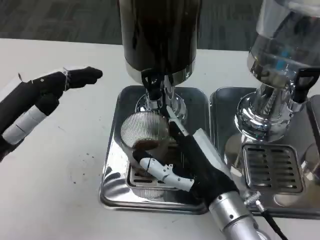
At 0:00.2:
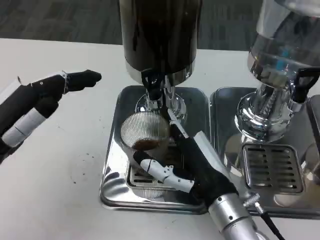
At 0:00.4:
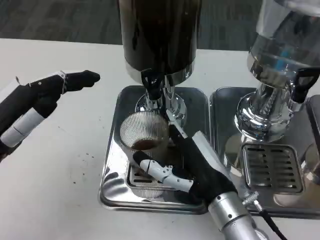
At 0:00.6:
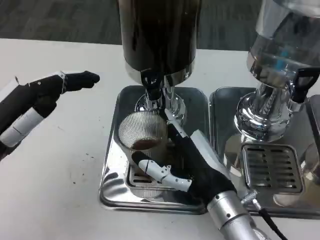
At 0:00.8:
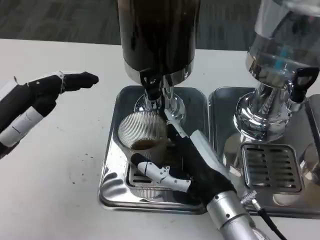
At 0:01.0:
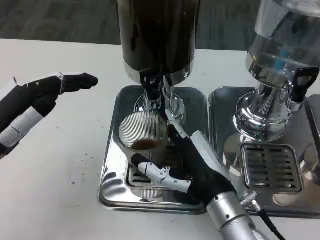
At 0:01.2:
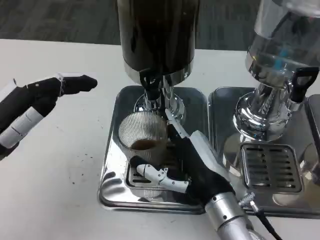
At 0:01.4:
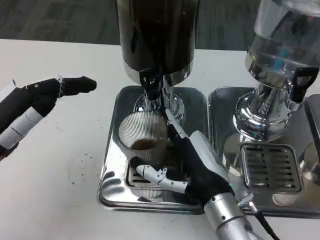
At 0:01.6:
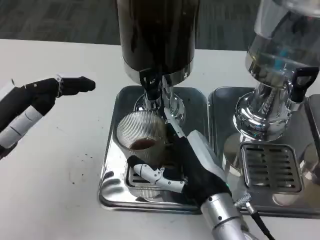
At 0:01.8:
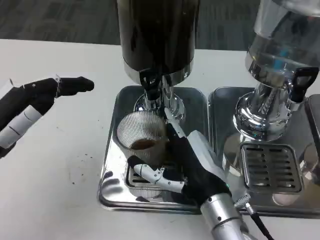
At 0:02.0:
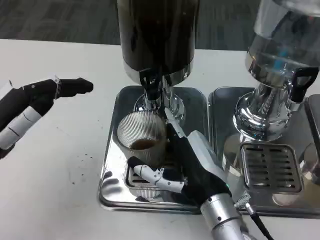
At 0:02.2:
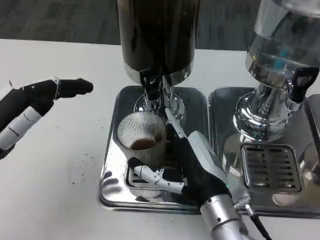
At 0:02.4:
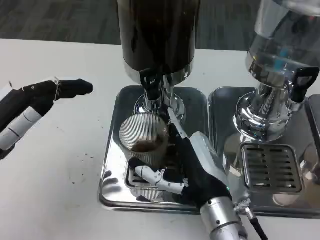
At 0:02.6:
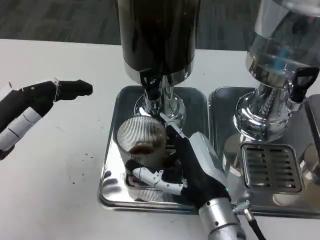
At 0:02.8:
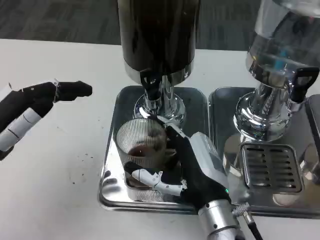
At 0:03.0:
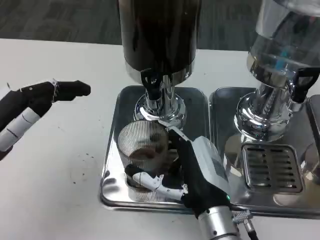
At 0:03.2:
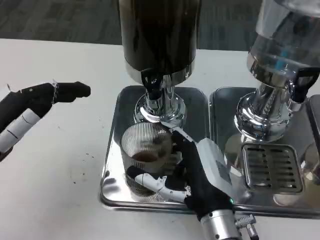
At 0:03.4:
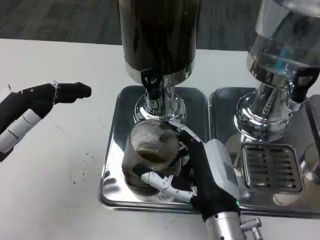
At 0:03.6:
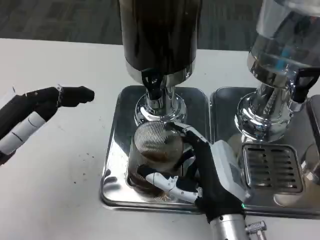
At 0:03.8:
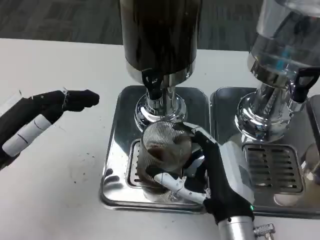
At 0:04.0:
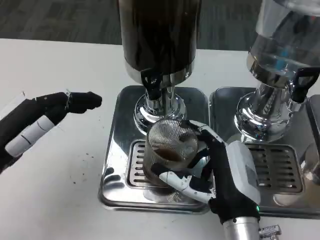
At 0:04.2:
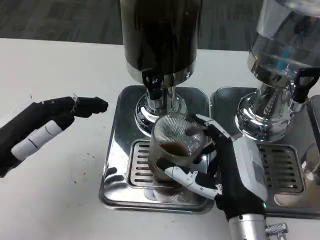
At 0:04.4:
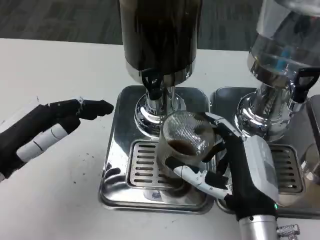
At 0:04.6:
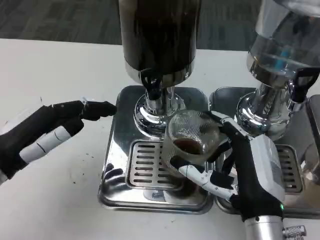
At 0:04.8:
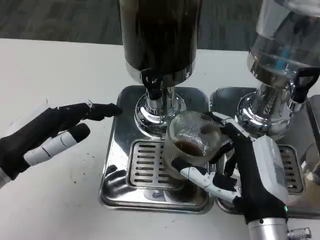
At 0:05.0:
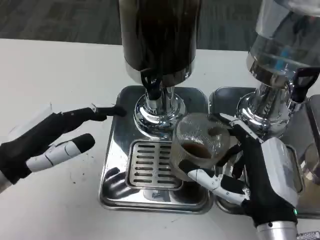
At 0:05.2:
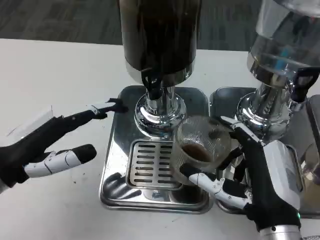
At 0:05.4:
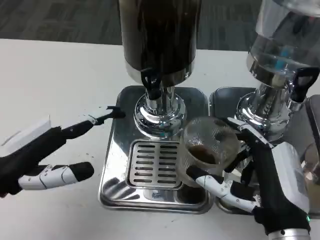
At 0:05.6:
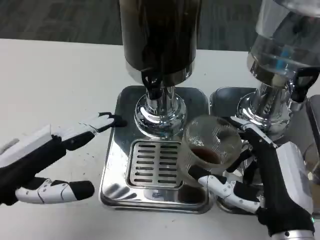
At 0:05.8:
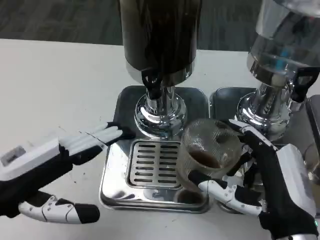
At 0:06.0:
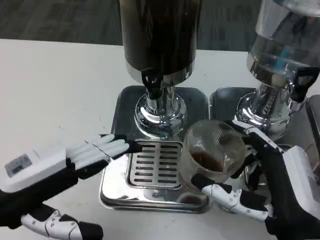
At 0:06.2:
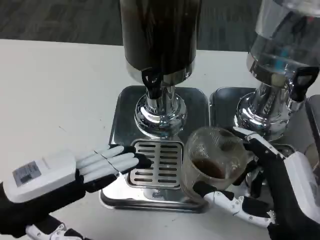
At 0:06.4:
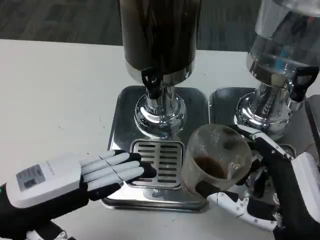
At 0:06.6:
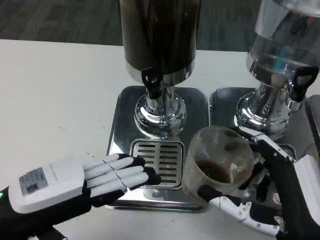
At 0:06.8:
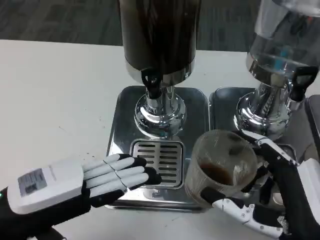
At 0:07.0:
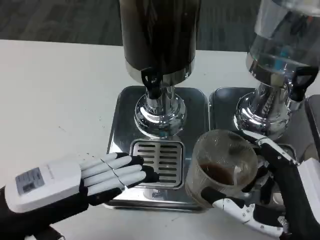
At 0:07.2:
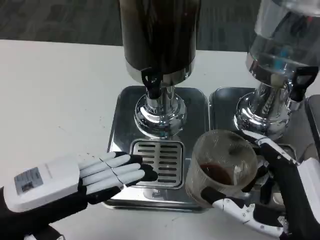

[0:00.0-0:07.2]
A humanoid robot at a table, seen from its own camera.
Task of the whole recording: Grasp the cup under the faucet to collect the drink, then remove the cup.
0:00.0 to 0:01.4: The two hands keep their place.
0:01.4 to 0:02.8: The hands make only small movements.
0:04.4 to 0:05.8: The right hand ends up some 5 cm from where it was.

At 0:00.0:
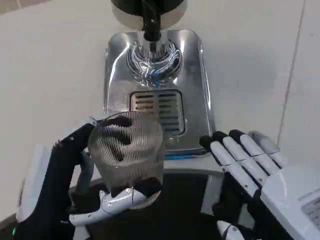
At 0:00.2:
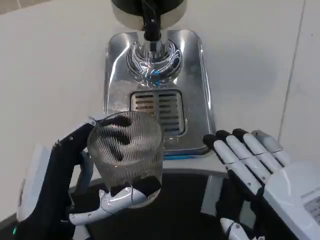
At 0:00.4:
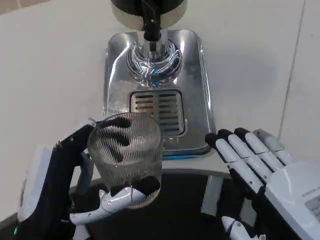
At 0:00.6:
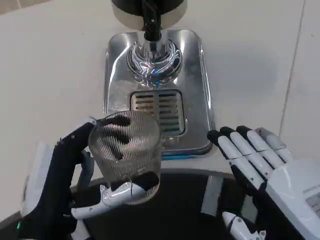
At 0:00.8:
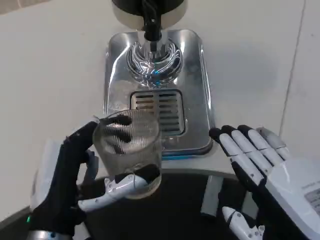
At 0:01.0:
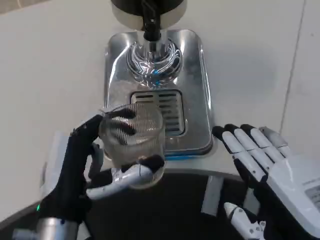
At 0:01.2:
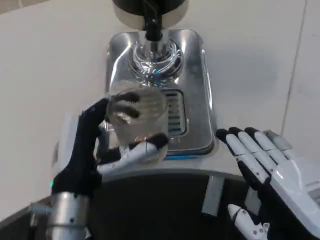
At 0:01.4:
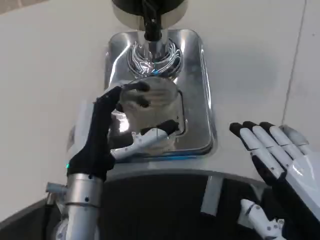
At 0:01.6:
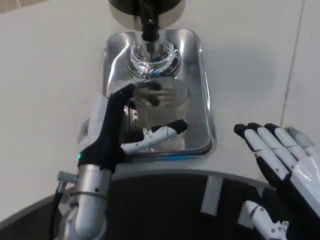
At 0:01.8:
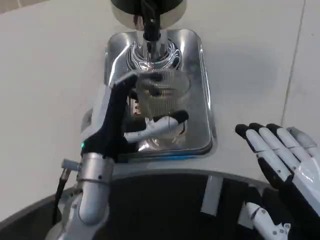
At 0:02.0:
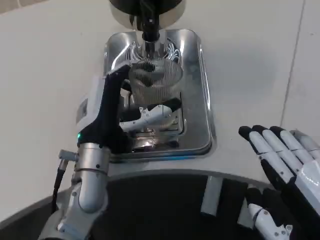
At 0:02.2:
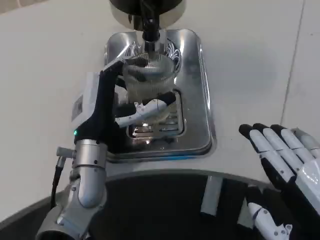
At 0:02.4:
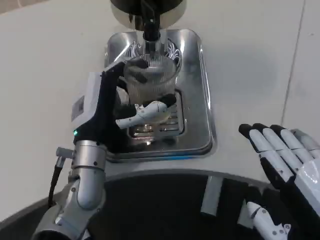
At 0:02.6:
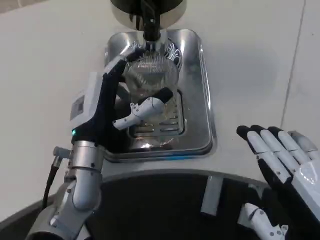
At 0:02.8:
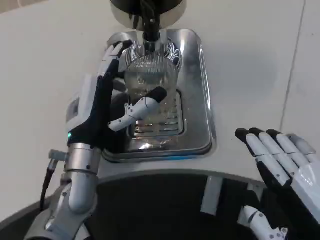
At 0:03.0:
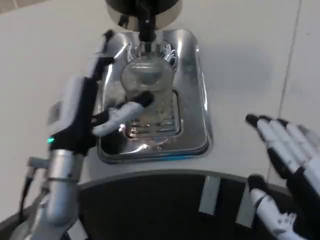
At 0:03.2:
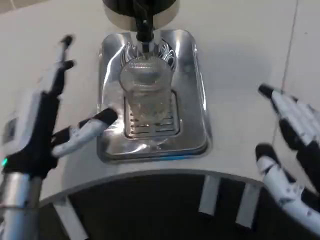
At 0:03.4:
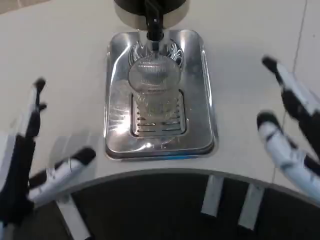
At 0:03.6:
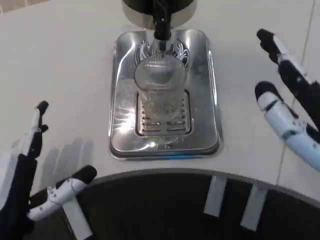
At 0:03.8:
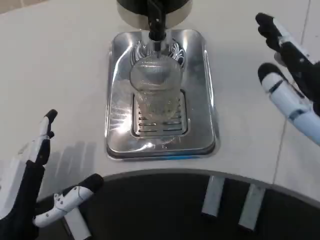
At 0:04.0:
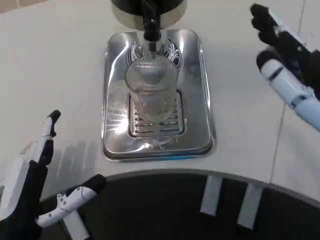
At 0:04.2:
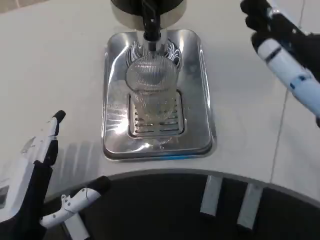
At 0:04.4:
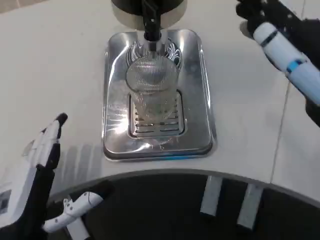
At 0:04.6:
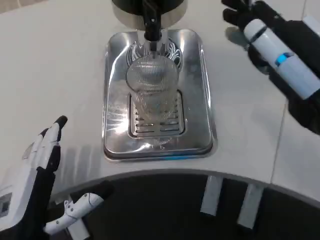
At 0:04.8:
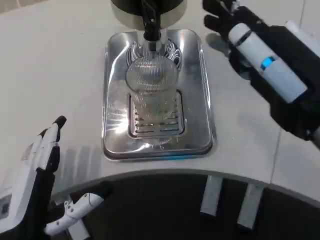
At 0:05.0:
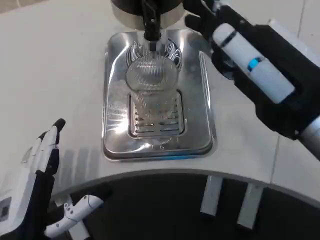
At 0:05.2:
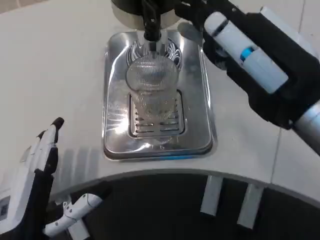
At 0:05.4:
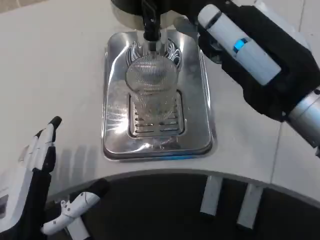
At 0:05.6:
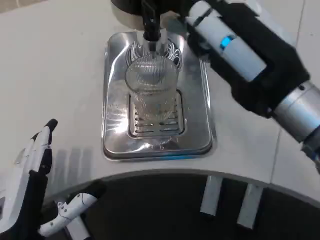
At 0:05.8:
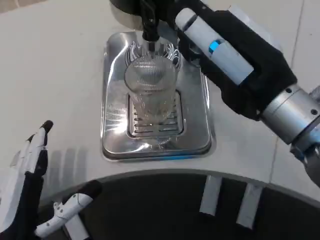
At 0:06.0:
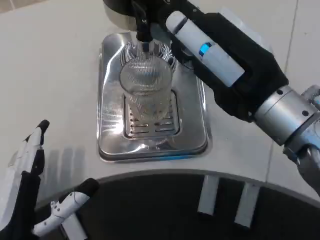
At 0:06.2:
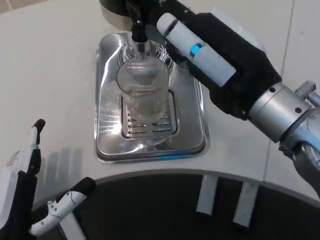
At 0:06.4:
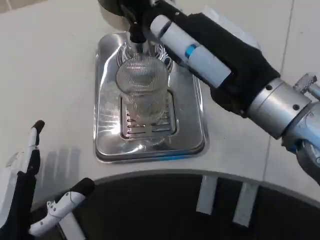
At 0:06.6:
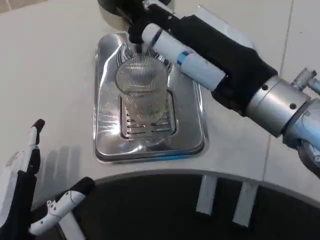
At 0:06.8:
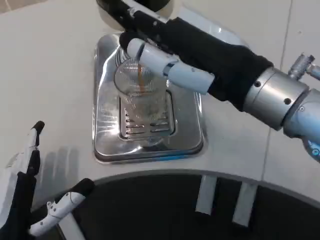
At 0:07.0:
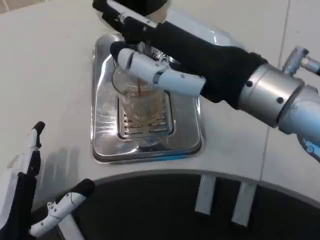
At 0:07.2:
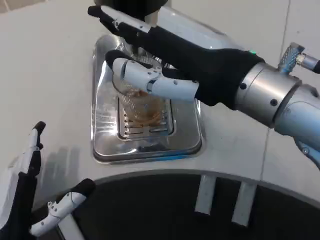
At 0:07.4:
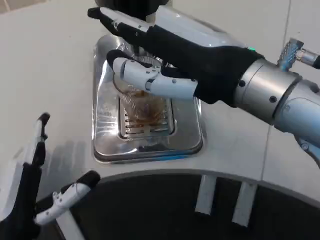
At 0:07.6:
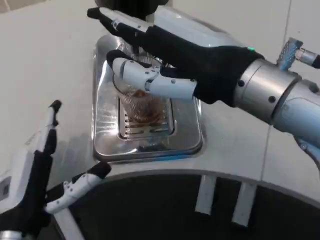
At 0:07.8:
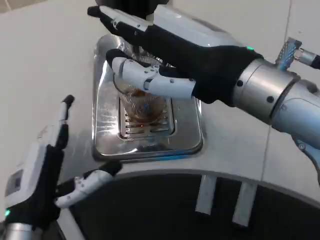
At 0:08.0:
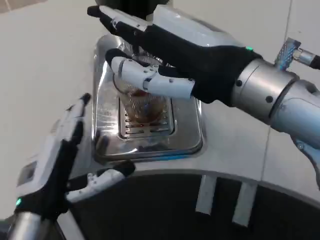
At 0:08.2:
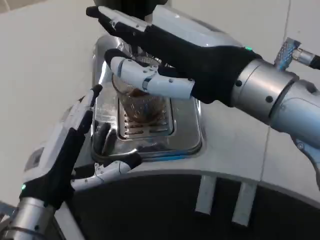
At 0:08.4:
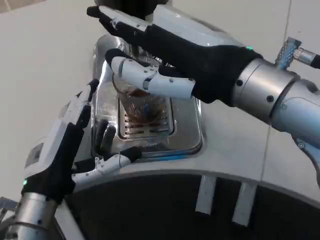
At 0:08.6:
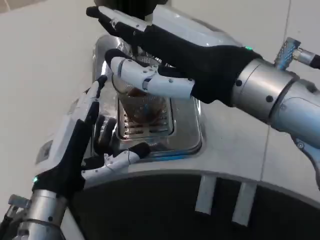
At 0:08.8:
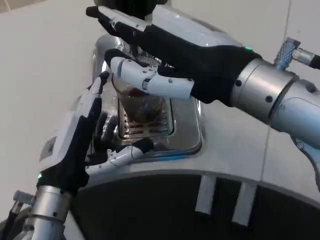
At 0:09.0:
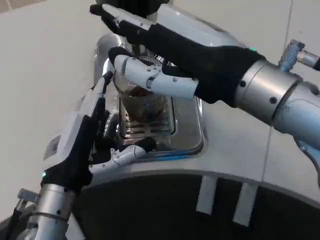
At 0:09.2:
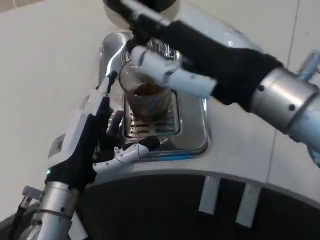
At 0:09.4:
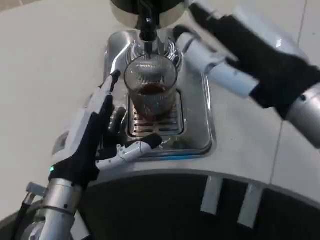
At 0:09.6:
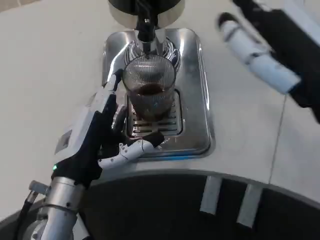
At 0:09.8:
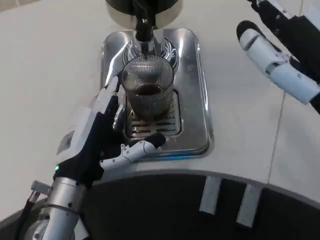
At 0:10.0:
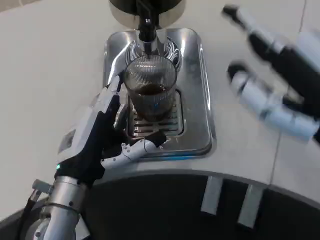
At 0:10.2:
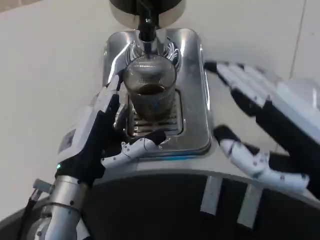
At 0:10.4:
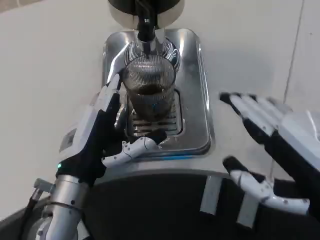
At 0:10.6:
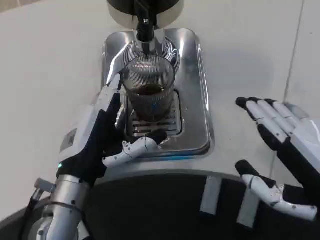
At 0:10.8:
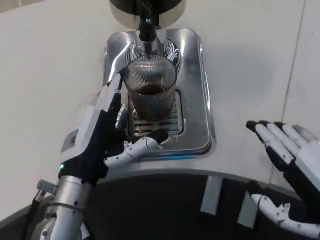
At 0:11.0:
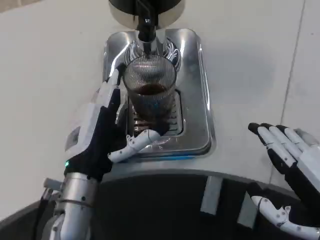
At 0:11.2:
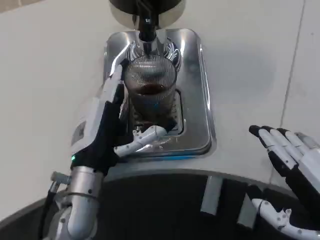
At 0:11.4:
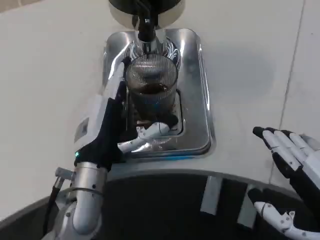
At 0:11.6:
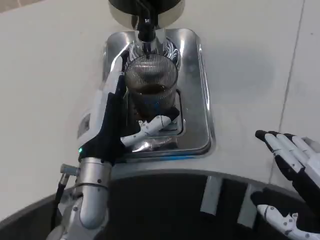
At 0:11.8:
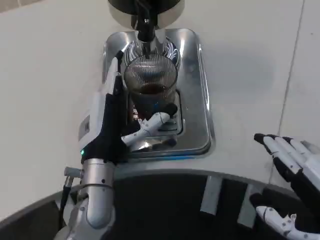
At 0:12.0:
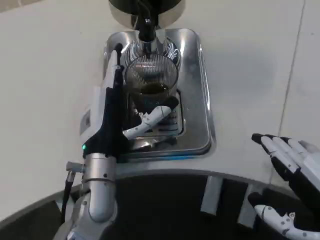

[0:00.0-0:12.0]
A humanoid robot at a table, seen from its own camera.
Task of the whole recording: Grasp the cup under the faucet to collect the drink, then remove the cup.
0:00.0 to 0:01.6: The left hand is displaced forward by some 15 cm.
0:03.0 to 0:04.4: The right hand travels forward and upward by some 15 cm, while the left hand shifts roughly 15 cm backward.
0:04.4 to 0:06.0: The right hand goes some 5 cm to the left.
0:06.0 to 0:07.6: The right hand moves about 5 cm.
0:07.6 to 0:09.0: The left hand travels forward by approximately 5 cm.
0:09.0 to 0:10.4: The right hand shifts roughly 15 cm downward, to the right and backward.
0:10.4 to 0:12.0: The left hand shifts approximately 5 cm to the right.

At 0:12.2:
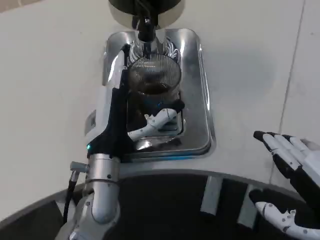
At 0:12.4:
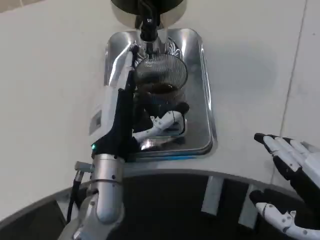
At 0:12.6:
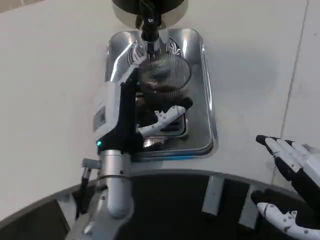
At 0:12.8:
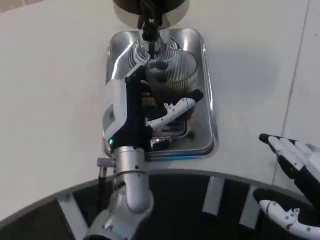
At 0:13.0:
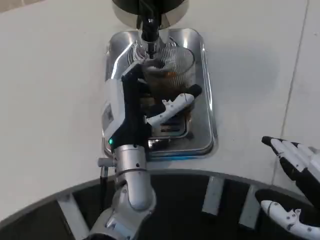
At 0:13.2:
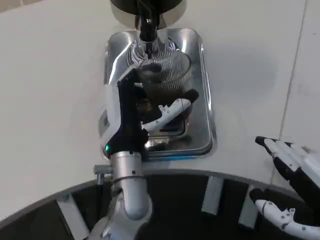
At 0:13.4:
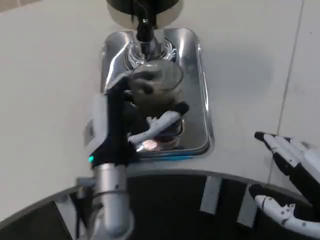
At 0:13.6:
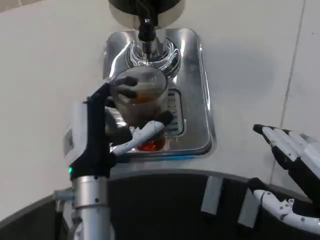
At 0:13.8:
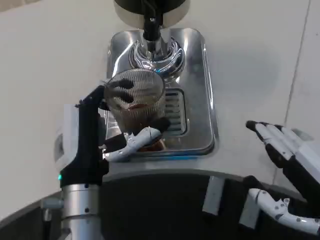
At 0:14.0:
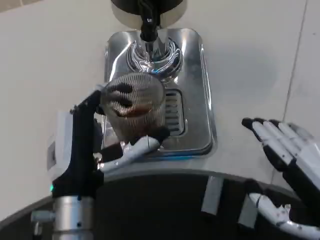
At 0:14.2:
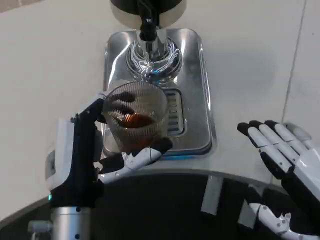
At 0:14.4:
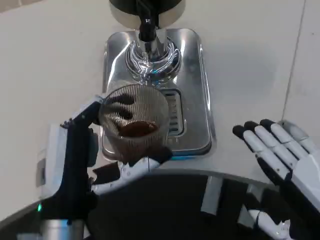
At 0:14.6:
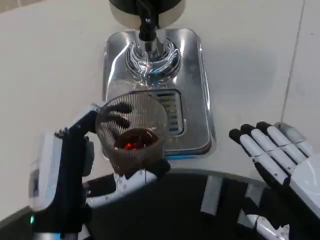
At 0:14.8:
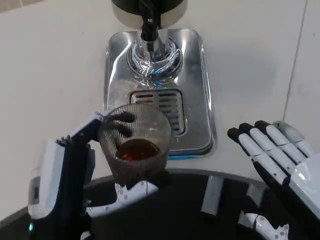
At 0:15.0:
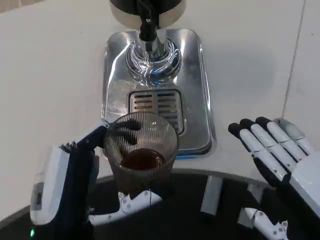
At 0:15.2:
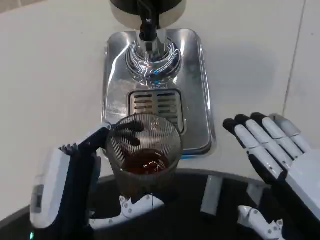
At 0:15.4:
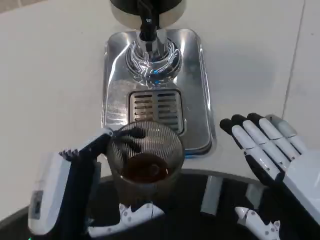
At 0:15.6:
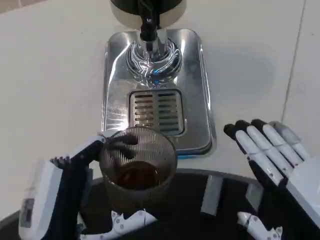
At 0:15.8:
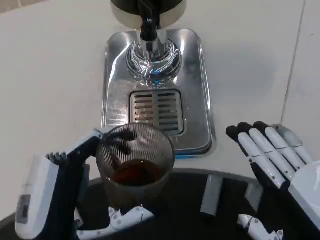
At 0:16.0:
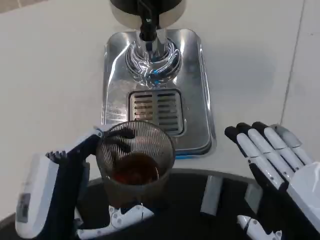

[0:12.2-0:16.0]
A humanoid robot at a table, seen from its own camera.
Task of the whole recording: Grasp the cup under the faucet to collect the drink, then remove the cup.
0:12.2 to 0:13.4: The hands move only a little.
0:13.4 to 0:14.8: The left hand travels backward and to the left by roughly 15 cm.
0:14.8 to 0:16.0: The hands make only small movements.
